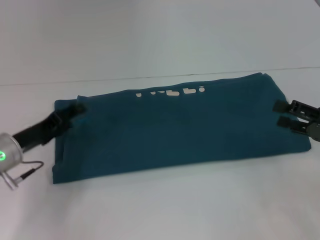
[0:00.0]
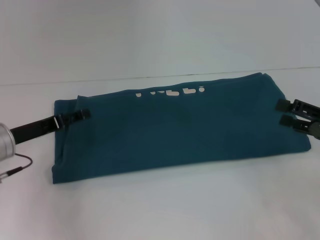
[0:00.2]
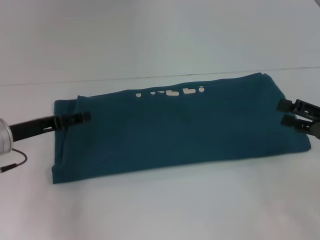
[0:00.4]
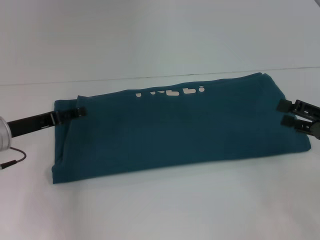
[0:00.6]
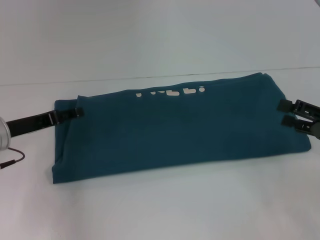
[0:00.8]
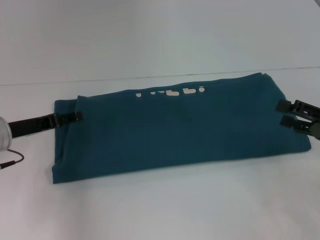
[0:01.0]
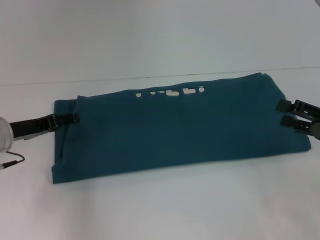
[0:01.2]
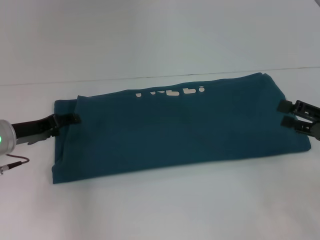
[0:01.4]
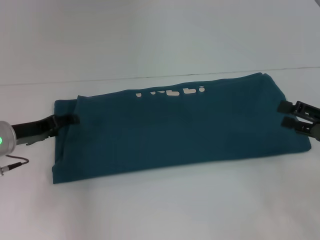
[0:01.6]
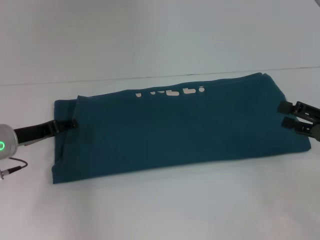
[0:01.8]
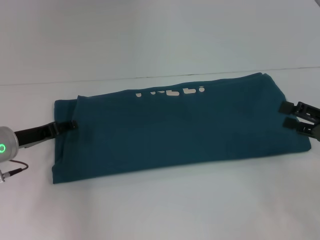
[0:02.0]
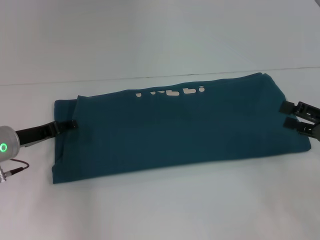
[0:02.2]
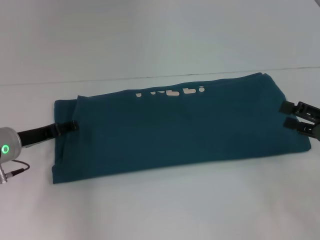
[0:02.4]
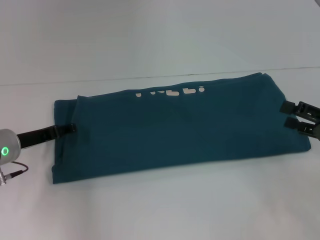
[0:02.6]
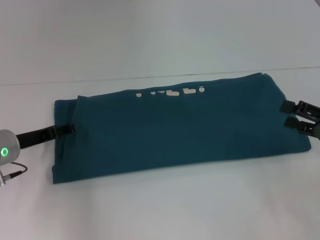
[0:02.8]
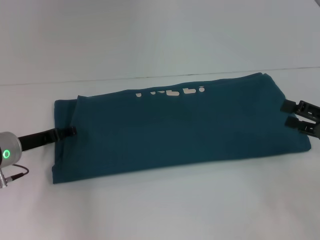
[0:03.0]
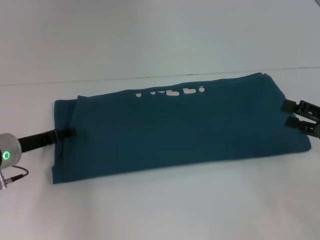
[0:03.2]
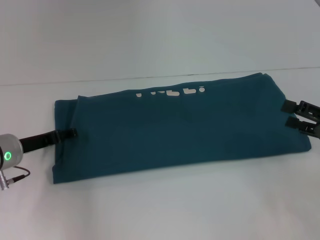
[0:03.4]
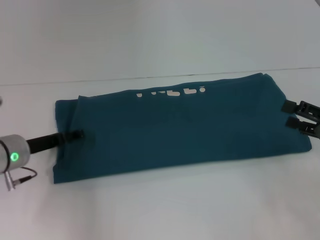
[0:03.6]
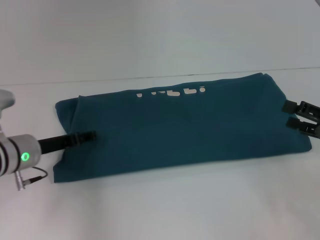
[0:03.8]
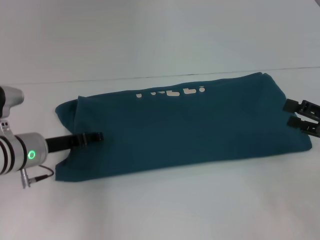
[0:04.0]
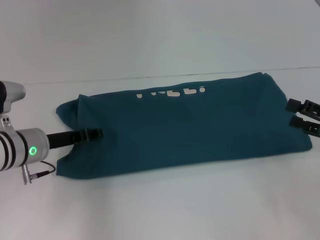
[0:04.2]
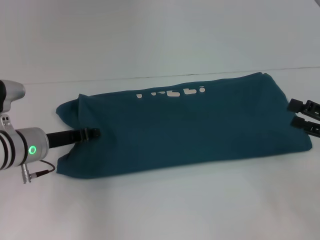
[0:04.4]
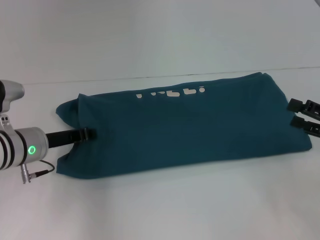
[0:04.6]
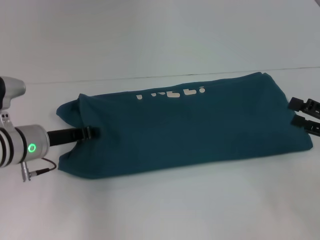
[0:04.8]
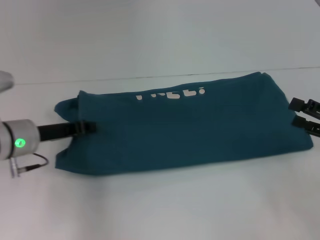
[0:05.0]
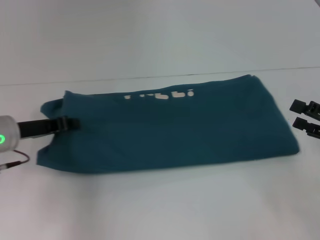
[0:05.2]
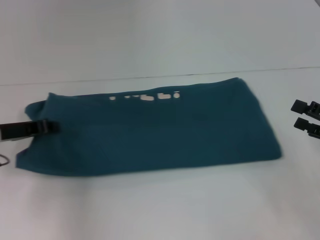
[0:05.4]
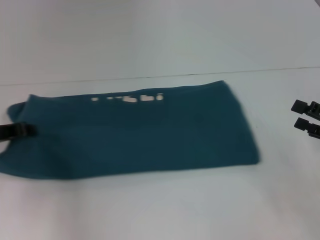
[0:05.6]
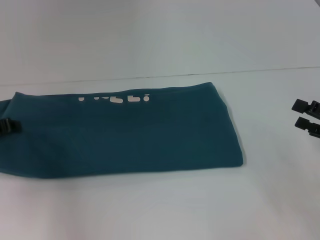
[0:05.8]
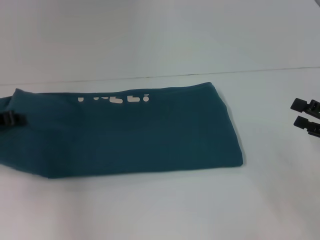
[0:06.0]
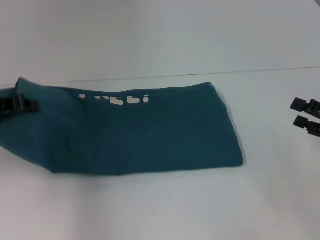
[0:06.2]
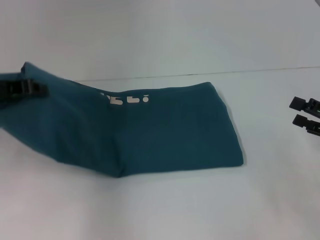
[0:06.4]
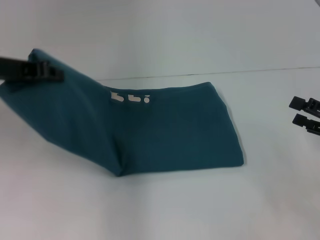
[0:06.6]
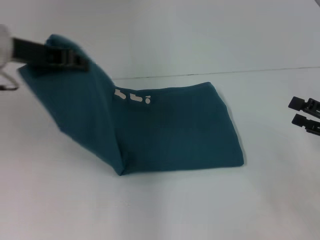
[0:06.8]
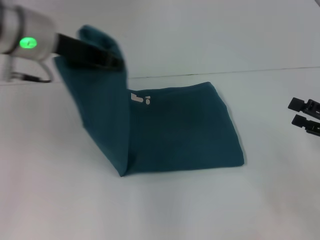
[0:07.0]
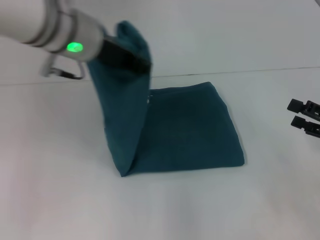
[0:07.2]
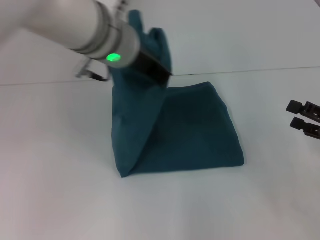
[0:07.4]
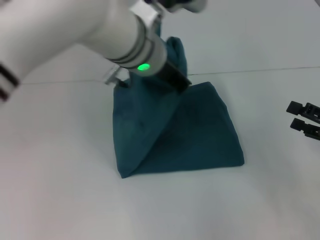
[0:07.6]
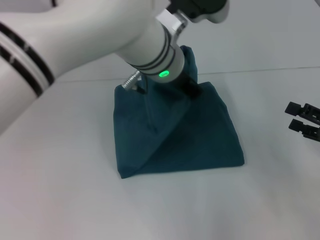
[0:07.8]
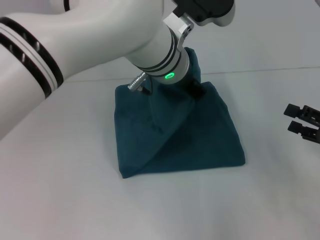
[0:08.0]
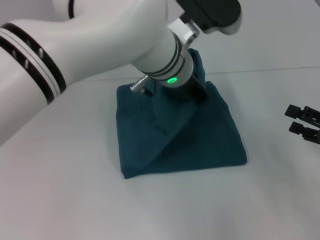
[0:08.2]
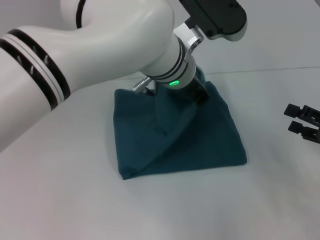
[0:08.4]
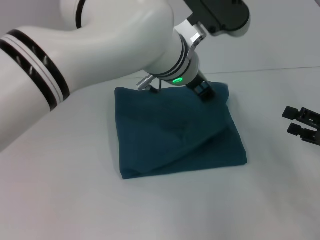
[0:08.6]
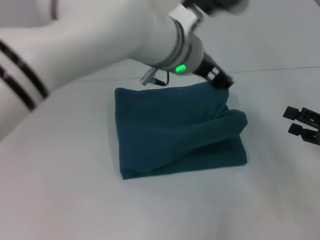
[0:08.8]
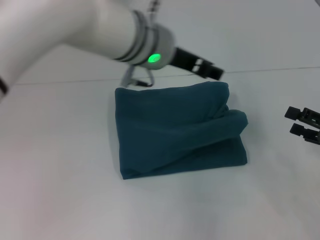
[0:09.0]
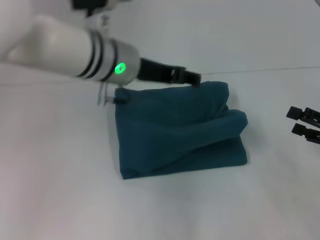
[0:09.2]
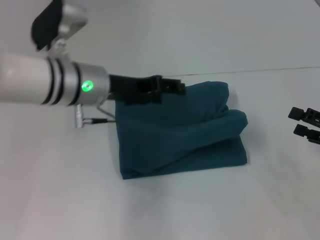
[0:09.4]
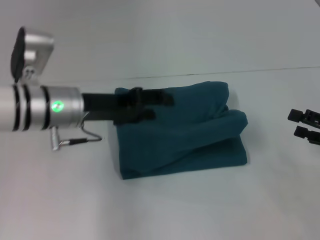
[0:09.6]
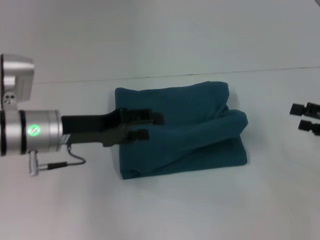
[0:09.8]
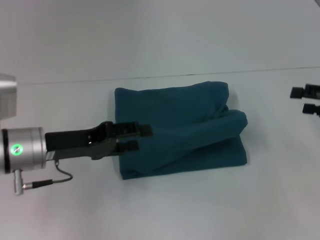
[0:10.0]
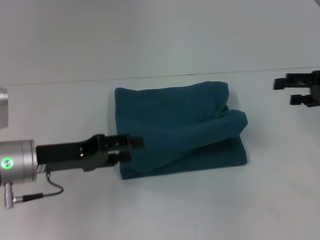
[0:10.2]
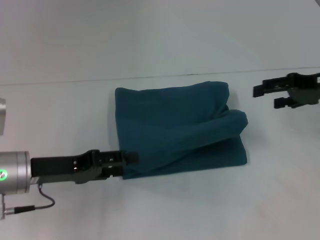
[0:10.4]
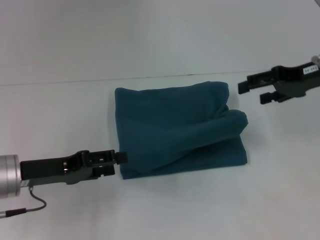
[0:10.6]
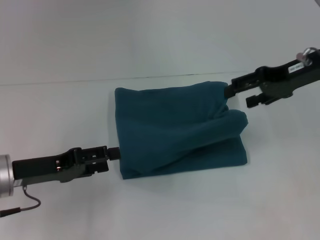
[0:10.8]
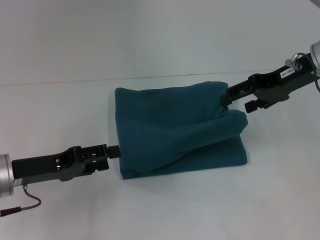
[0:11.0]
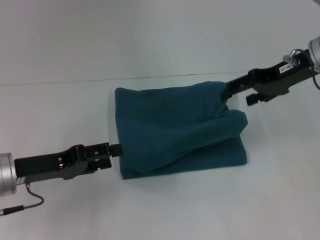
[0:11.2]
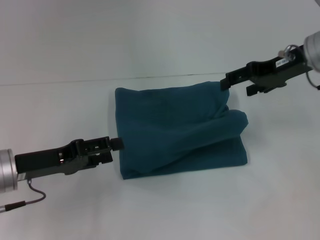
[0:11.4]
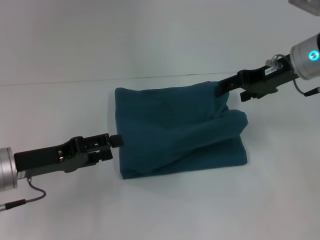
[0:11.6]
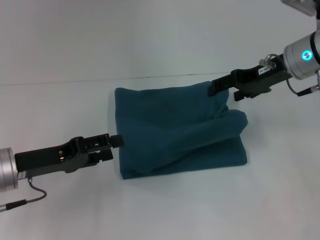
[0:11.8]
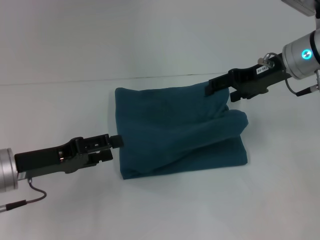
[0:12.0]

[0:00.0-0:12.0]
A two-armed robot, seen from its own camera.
Step, 0:00.0 to 0:08.8: Fold the clothes to the left.
0:01.6 to 0:03.0: The grippers make only small movements.
0:03.0 to 0:04.4: The left gripper closes.
0:04.4 to 0:06.0: The left gripper travels to the left and upward by some 10 cm.
0:06.0 to 0:07.6: The left gripper heads to the right, covering some 30 cm.
0:07.6 to 0:09.0: The left gripper opens up.
0:09.0 to 0:10.4: The left gripper heads to the left, downward and backward, covering about 25 cm, while the right gripper travels forward and upward by some 15 cm.
0:10.4 to 0:12.0: The right gripper goes approximately 10 cm to the left.

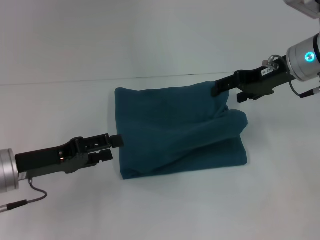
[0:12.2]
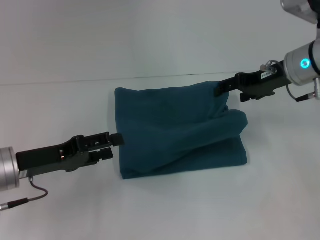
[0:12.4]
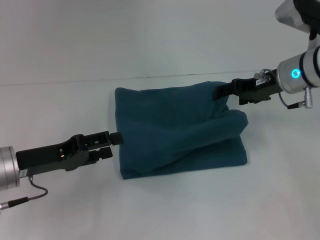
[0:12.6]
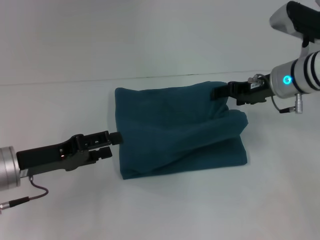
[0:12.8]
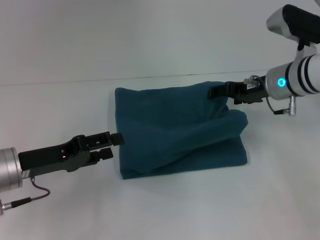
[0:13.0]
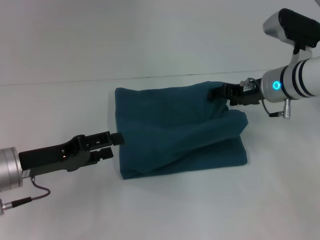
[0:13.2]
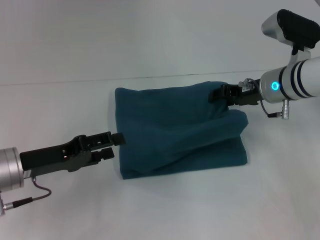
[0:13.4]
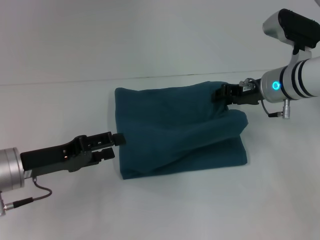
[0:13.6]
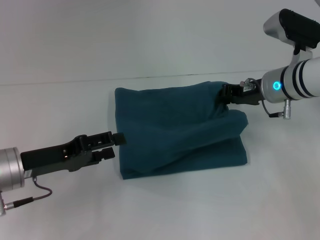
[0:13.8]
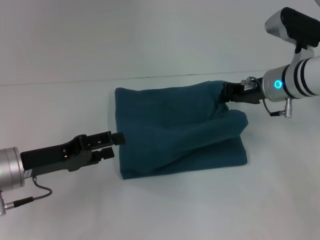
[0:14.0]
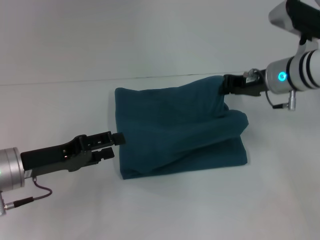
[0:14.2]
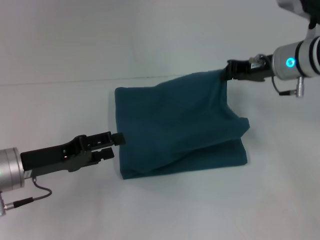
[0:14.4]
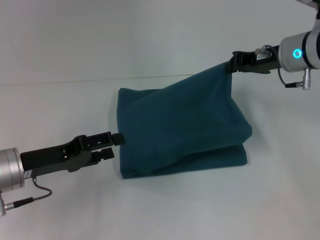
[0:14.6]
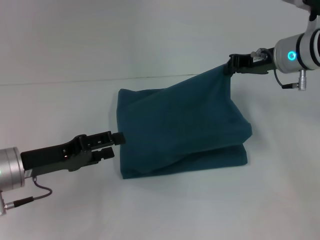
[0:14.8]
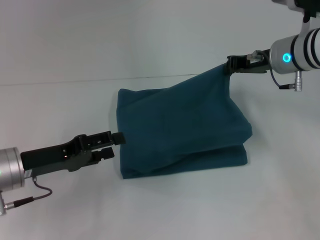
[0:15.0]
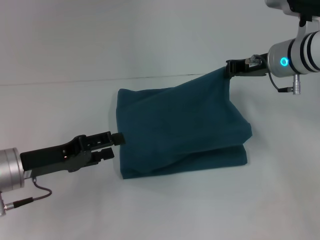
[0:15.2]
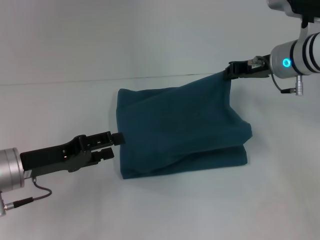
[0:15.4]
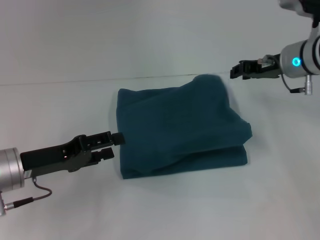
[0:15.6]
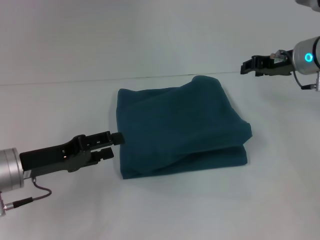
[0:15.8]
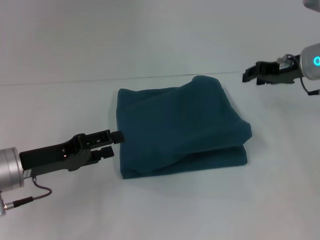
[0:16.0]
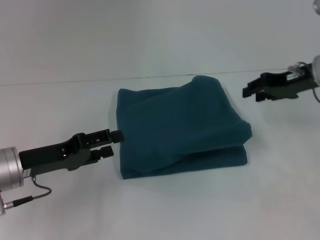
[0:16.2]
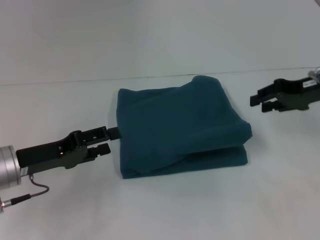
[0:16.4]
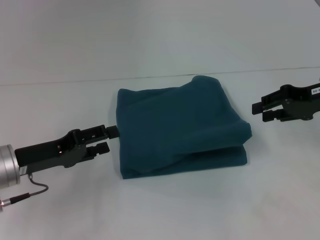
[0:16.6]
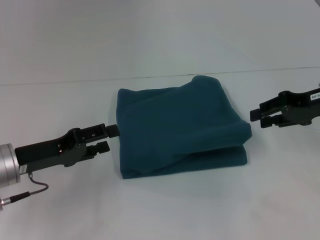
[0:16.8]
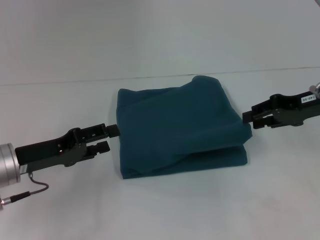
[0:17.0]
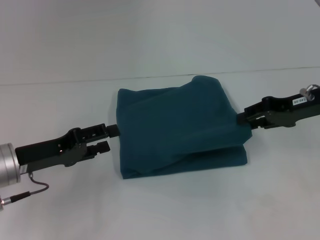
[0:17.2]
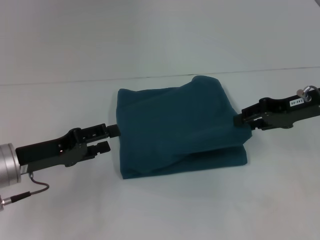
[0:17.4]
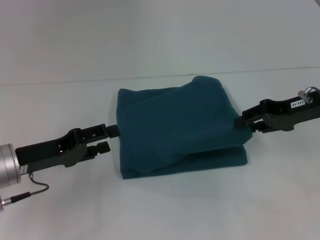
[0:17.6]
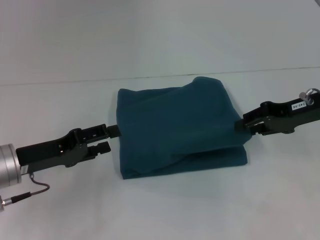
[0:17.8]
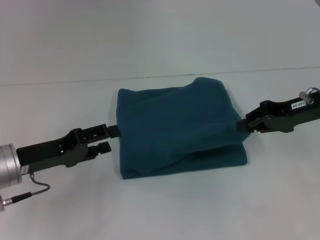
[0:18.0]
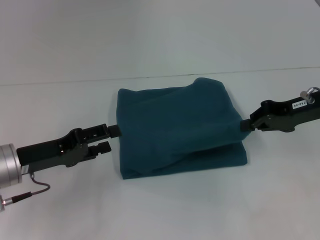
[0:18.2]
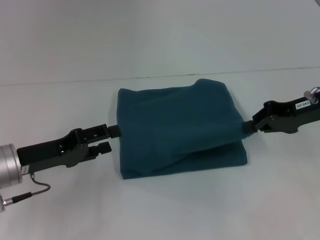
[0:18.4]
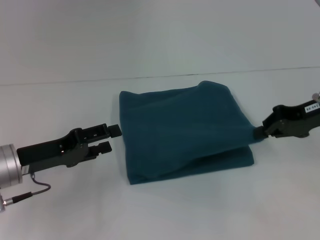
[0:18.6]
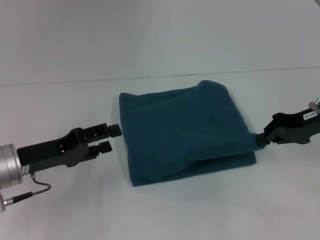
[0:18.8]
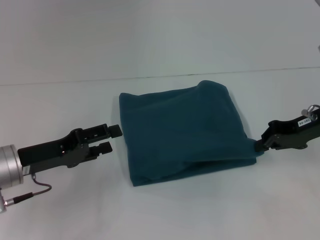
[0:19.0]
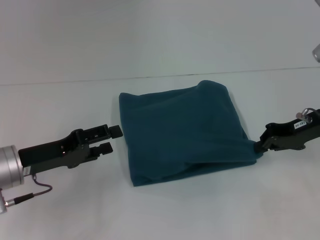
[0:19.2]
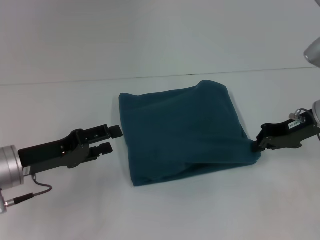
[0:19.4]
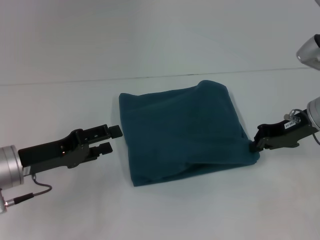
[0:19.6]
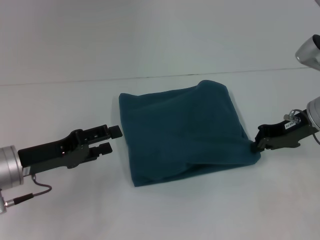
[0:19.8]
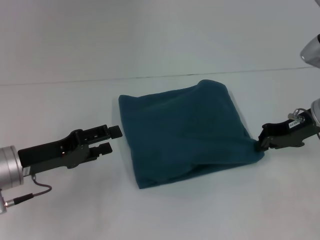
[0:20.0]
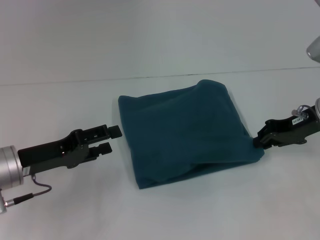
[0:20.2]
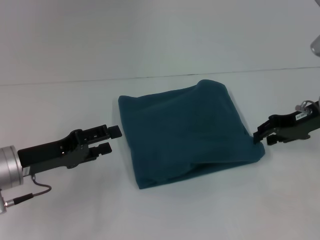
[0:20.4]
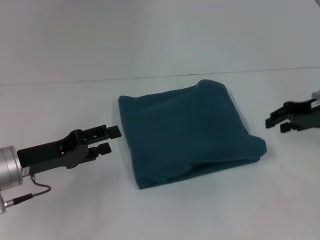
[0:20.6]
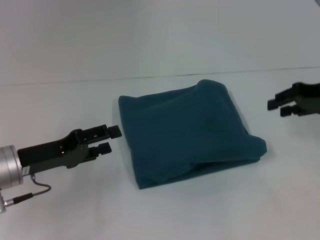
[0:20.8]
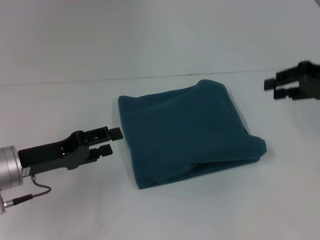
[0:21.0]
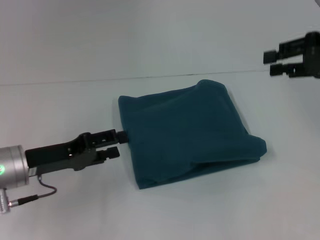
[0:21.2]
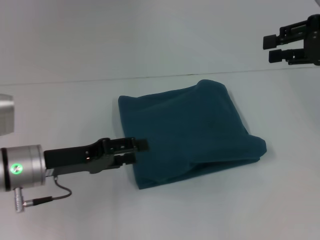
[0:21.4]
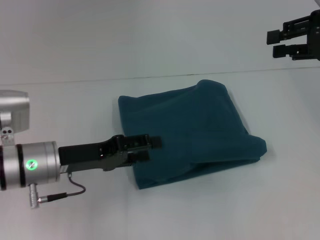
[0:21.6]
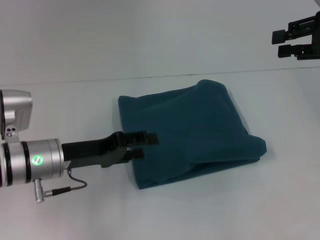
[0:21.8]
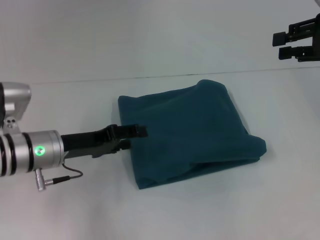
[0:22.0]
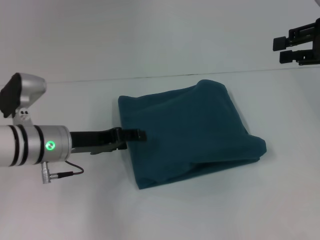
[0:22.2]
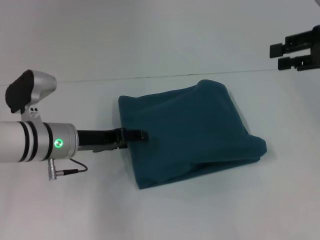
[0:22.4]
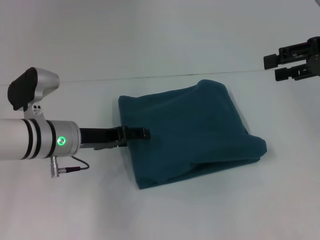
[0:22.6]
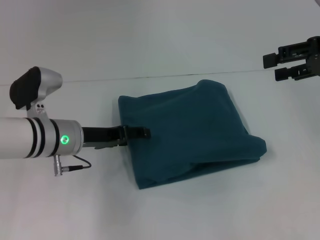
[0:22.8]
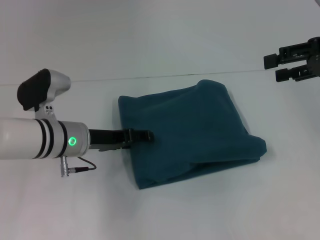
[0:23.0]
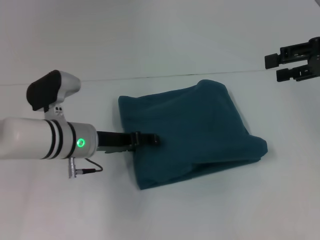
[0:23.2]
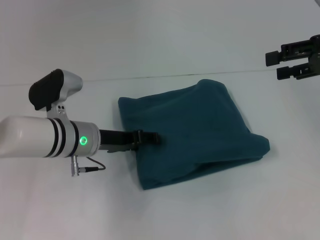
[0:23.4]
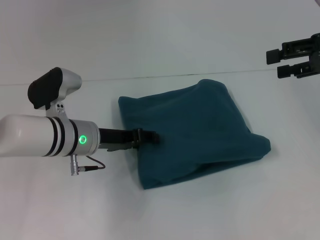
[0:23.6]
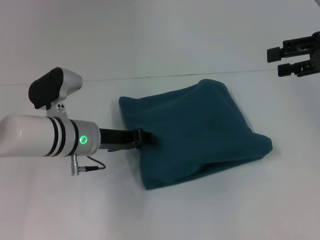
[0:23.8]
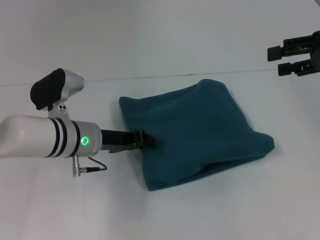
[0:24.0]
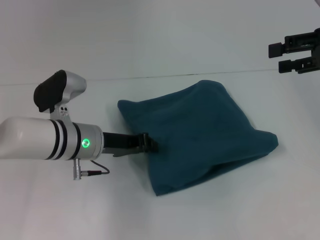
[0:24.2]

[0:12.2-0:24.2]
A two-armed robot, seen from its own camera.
0:12.2 to 0:13.8: The right gripper goes about 5 cm downward, and closes.
0:13.8 to 0:15.2: The right gripper closes.
0:15.2 to 0:16.6: The right gripper heads to the right and backward, covering about 10 cm, and opens its fingers.
0:16.6 to 0:18.2: There are only small adjustments of the grippers.
0:18.2 to 0:19.8: The grippers make only small movements.
0:19.8 to 0:21.2: The right gripper is displaced upward and to the right by some 10 cm, and opens.
0:21.2 to 0:22.6: The left gripper heads to the right and forward, covering approximately 10 cm.
0:22.6 to 0:24.2: The left gripper closes up.
